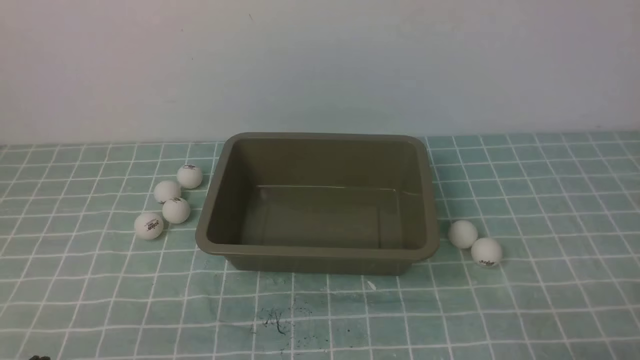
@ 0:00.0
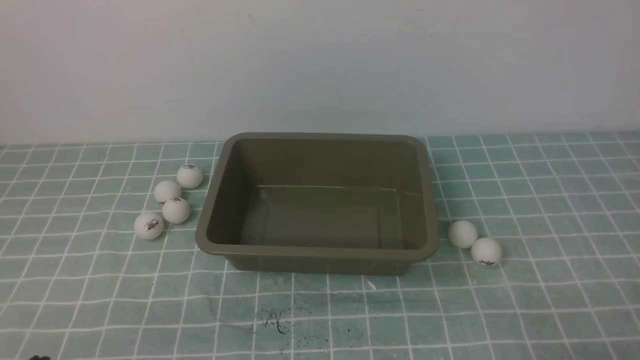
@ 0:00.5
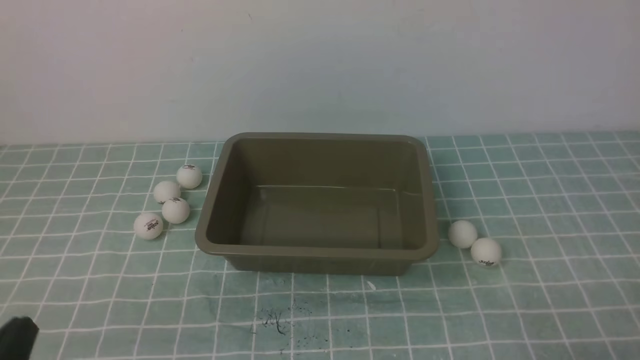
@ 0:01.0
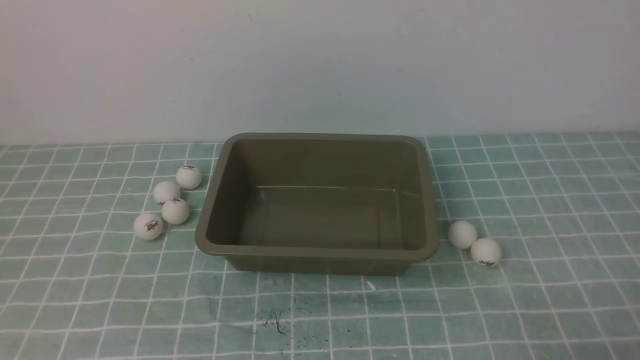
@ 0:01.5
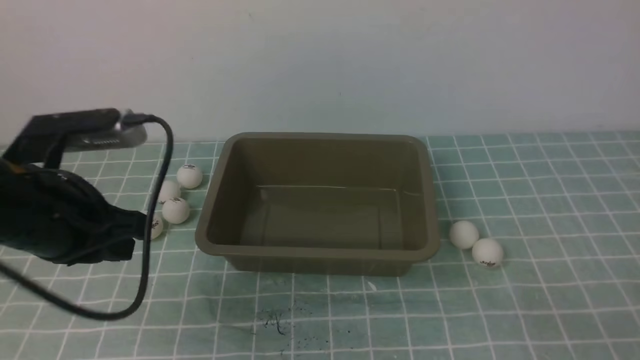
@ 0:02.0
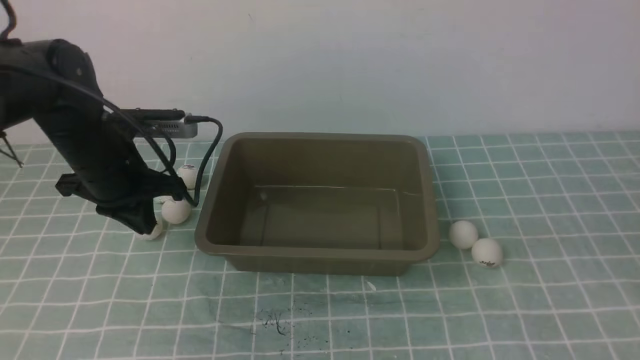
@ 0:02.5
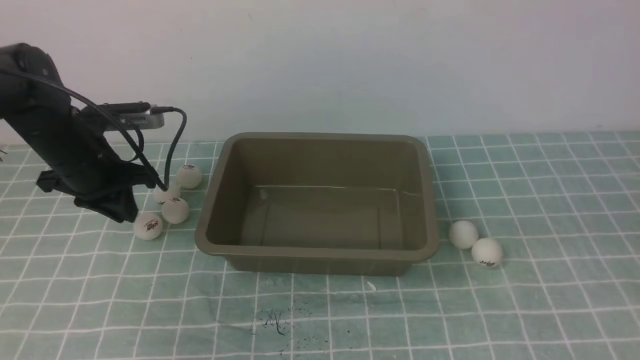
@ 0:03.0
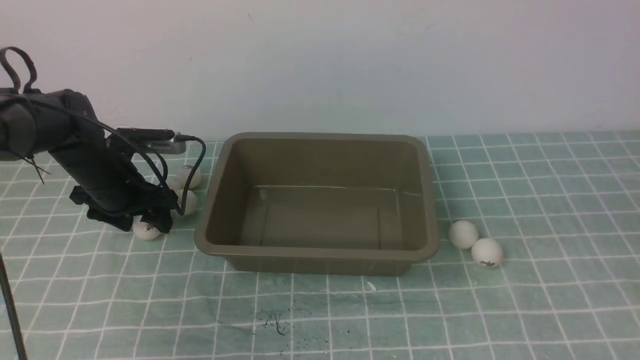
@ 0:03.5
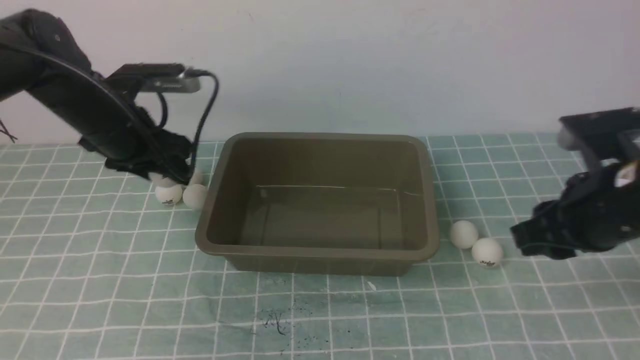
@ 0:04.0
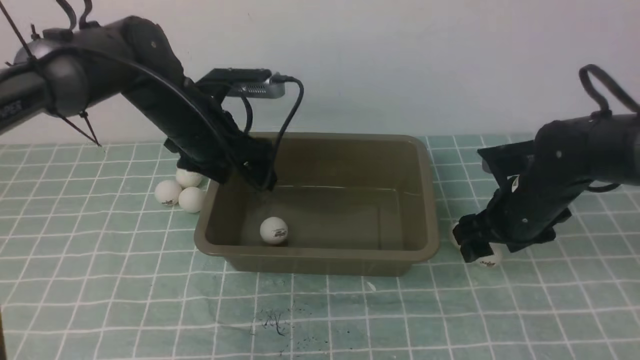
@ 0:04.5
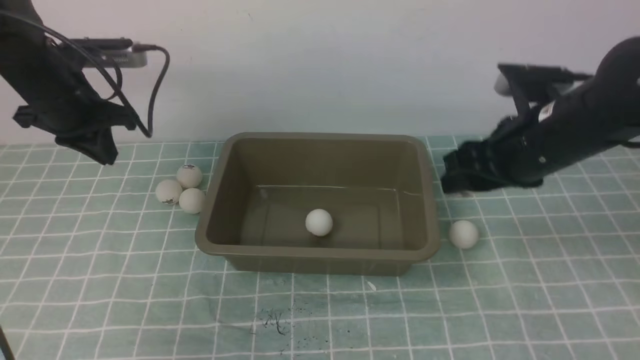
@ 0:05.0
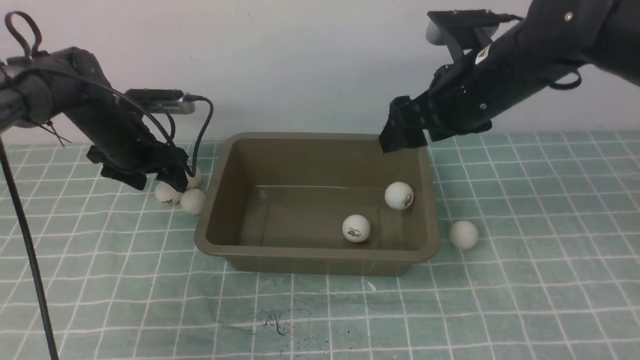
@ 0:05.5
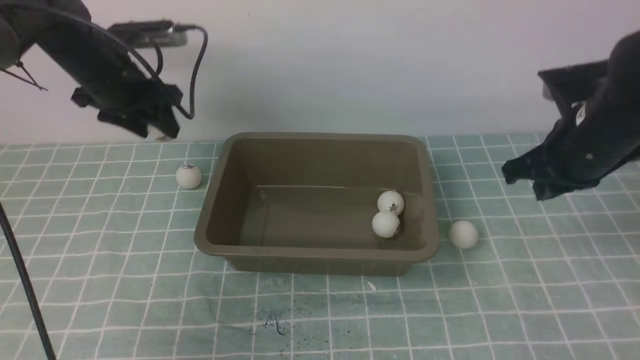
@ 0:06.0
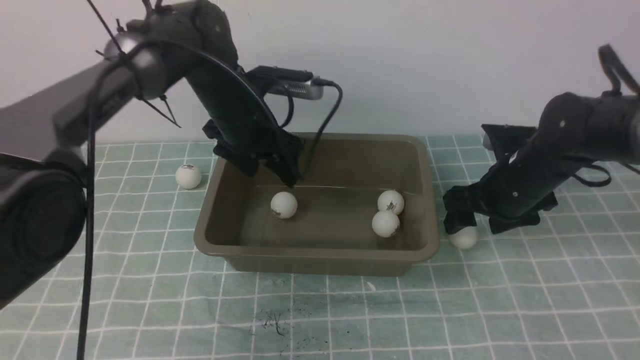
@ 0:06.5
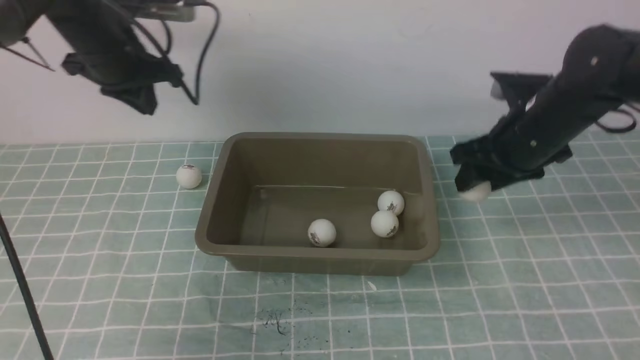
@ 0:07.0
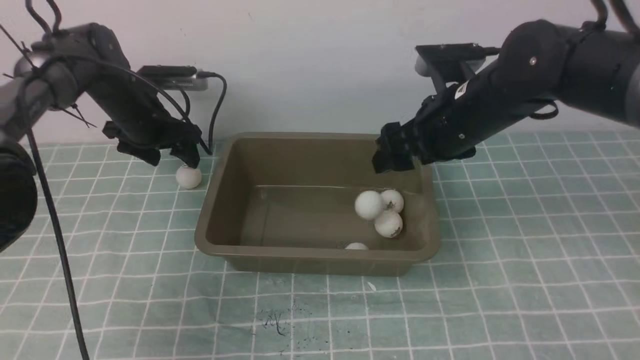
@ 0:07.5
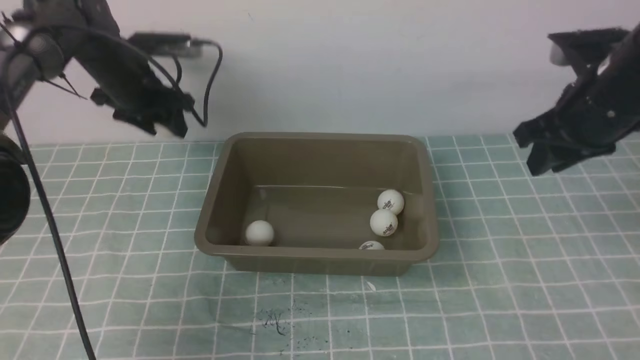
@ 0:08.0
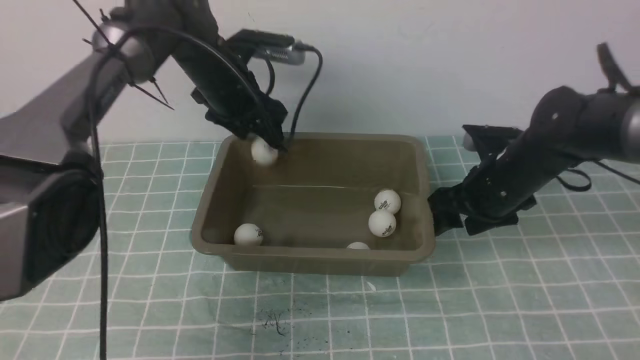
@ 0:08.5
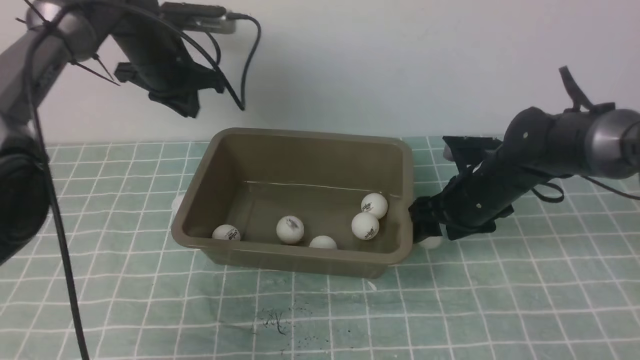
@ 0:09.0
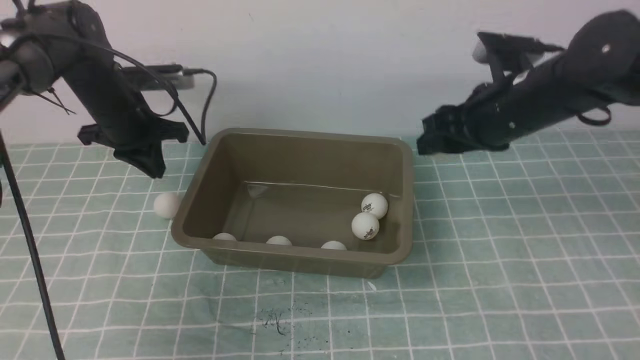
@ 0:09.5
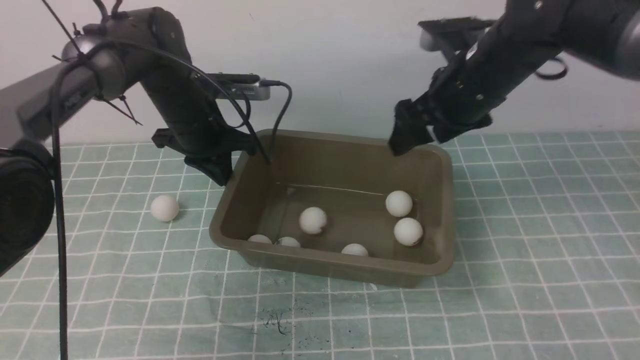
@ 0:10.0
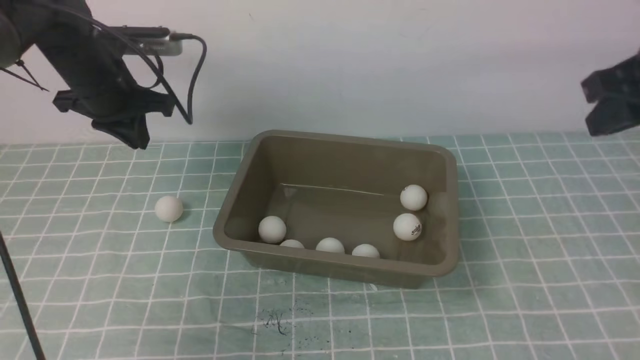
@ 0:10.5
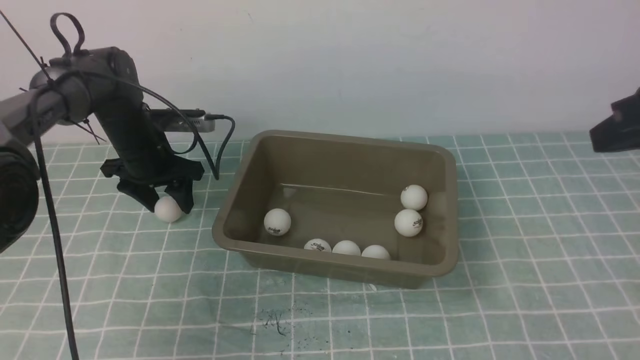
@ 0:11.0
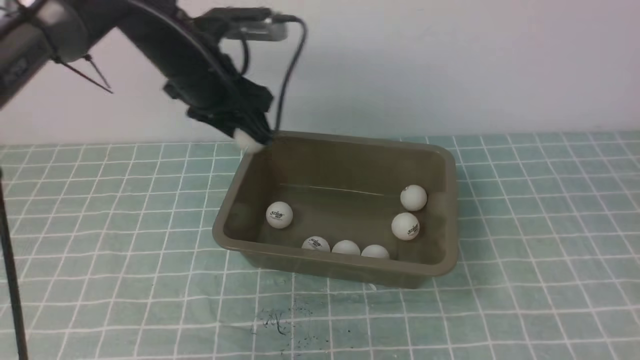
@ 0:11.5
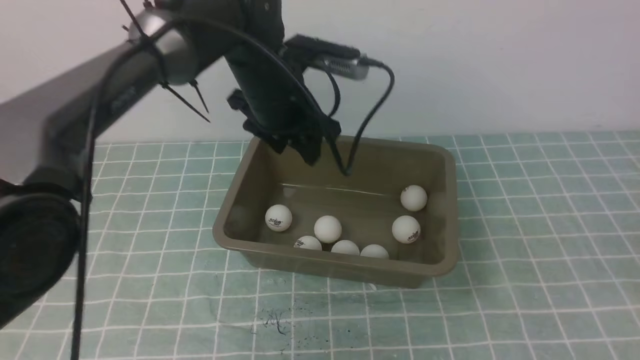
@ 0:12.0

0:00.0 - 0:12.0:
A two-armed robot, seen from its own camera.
Step, 0:00.0 - 0:03.5: use the left arm to clamp the table tennis ball closest to it.
Step, 0:05.0 - 0:05.5: use the right arm to put the table tennis ball into the box.
Step, 0:06.0 - 0:06.5: use the left arm to put the table tennis ball into the box.
Step, 0:07.0 - 0:07.5: use the right arm to put the table tennis ball into the box.
Step, 0:08.0 - 0:08.5: use the left arm to put the table tennis ball into the box.
Step, 0:09.5 - 0:10.0: use the right arm to put the table tennis ball into the box.
Step, 0:10.5 - 0:11.0: use the left arm to clamp the table tennis ball closest to it.
0:00.0 - 0:02.0: The left gripper is displaced forward and upward by about 25 cm. The right gripper travels upward by roughly 5 cm.
0:02.0 - 0:04.0: The grippers both shift forward by about 20 cm. The left gripper opens. Meanwhile the right gripper opens up.
0:04.0 - 0:06.0: The left gripper goes left and right, approximately 10 cm each way, reversing 2 times, and closes, then opens again, while the right gripper goes up and down, approximately 15 cm each way, reversing 2 times, and opens, then closes once more.
0:06.0 - 0:08.0: The left gripper reaches roughly 10 cm to the right, then returns, and closes and opens again, while the right gripper goes downward and returns, about 10 cm each way, and opens, then closes again.
0:08.0 - 0:10.0: The right gripper moves to the left, about 5 cm, reaches some 10 cm downward, then returns, and opens. Meanwhile the left gripper swings left and right, approximately 10 cm each way, with 2 reversals, and closes up.
0:10.0 - 0:12.0: The left gripper shifts about 15 cm to the right, upward and backward, and opens. Meanwhile the right gripper goes roughly 35 cm backward, and closes its fingers.

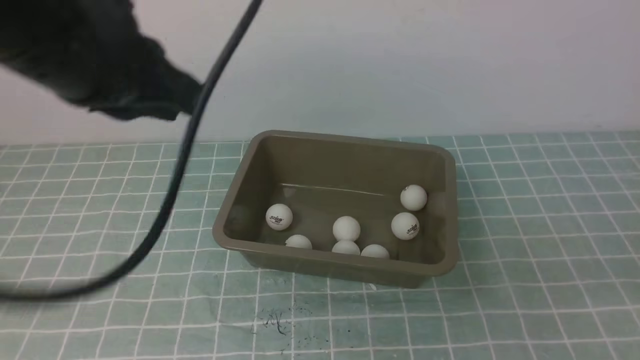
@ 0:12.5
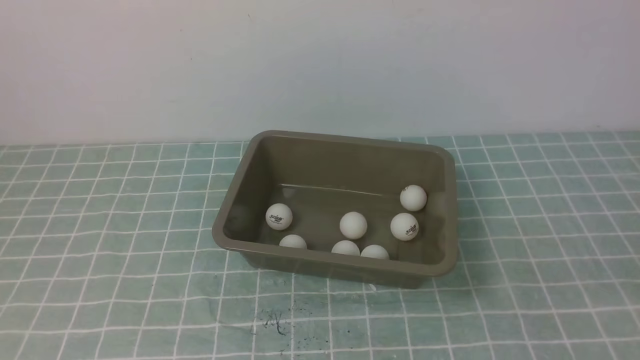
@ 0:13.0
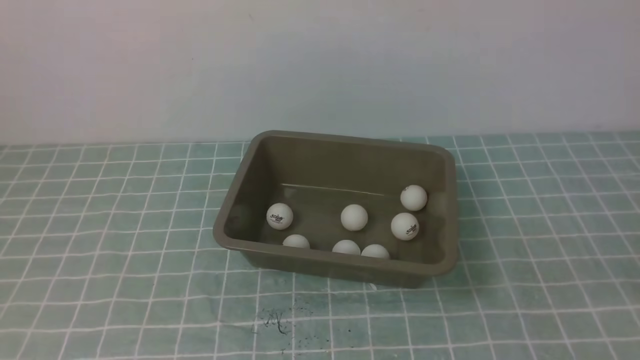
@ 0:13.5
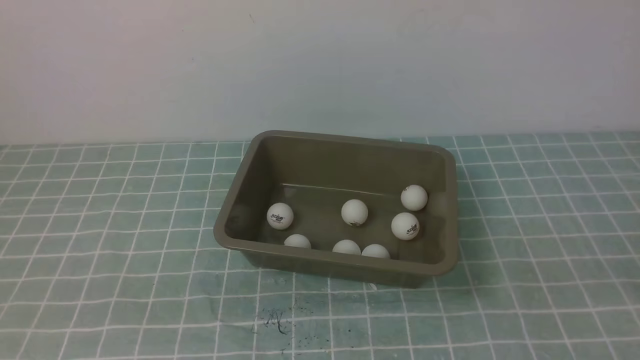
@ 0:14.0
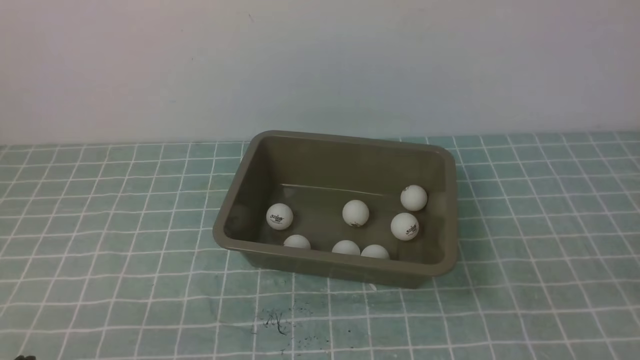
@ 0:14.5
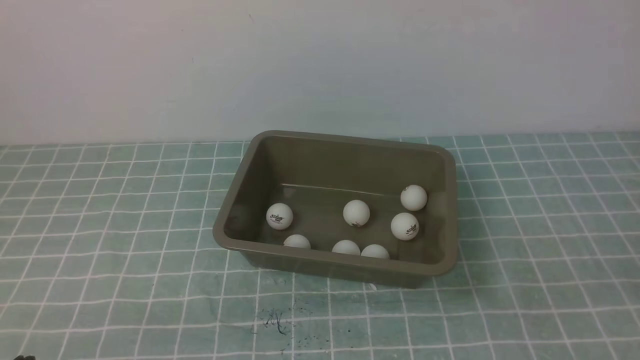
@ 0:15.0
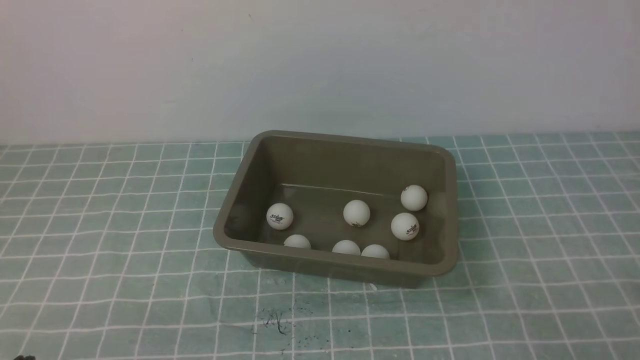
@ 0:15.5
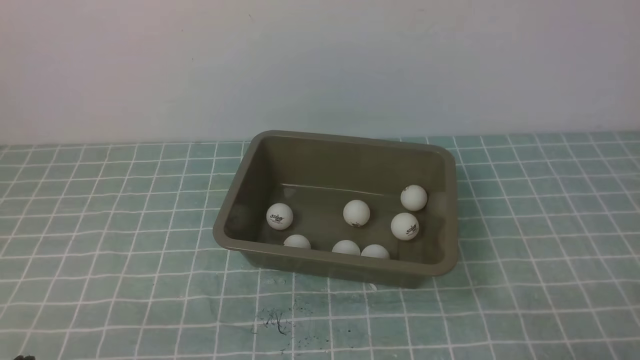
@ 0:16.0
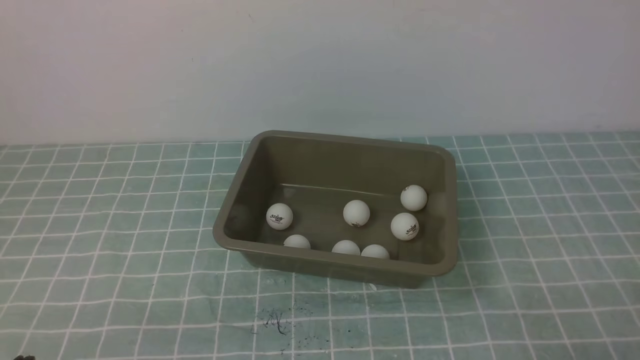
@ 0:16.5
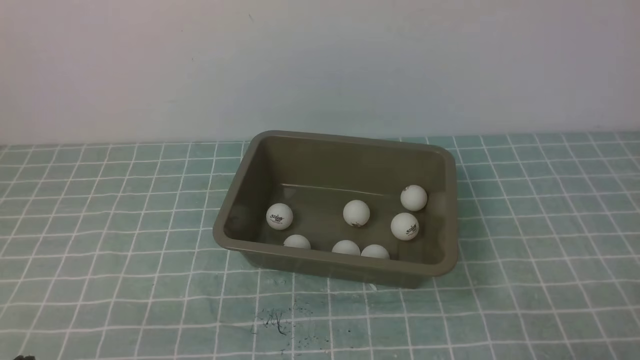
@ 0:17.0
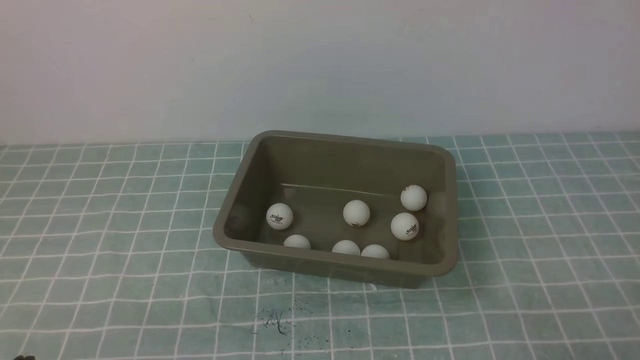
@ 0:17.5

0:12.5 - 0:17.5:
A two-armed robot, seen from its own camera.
0:12.5 - 0:15.0: The left gripper moves downward and backward, about 30 cm.

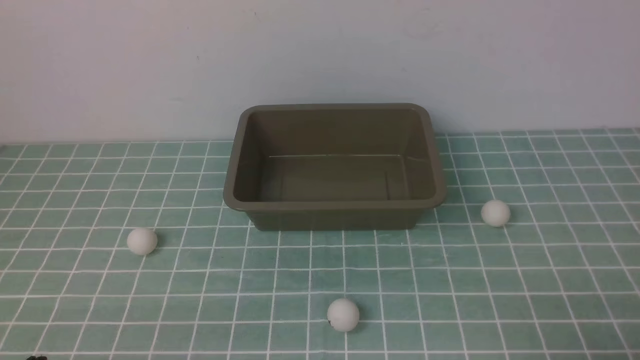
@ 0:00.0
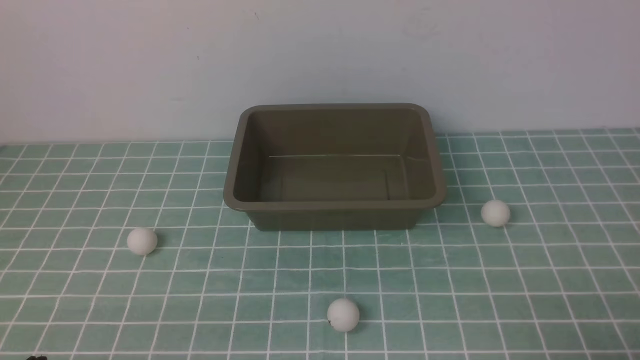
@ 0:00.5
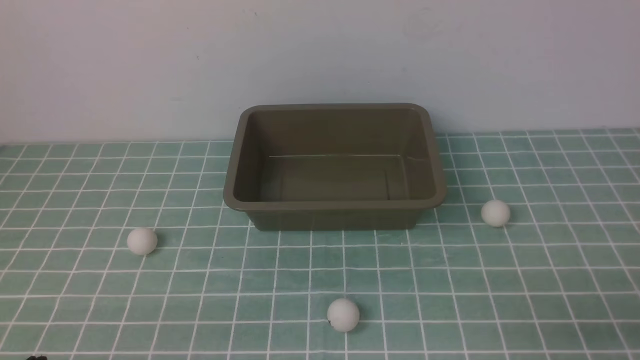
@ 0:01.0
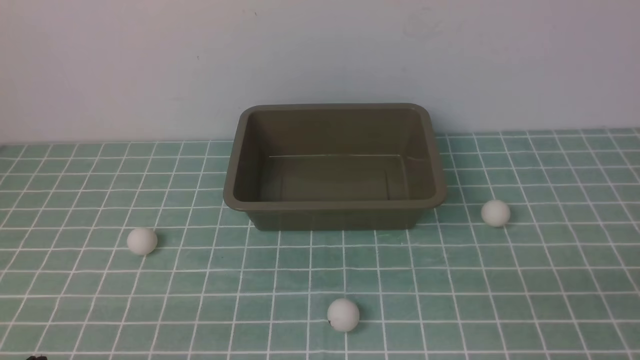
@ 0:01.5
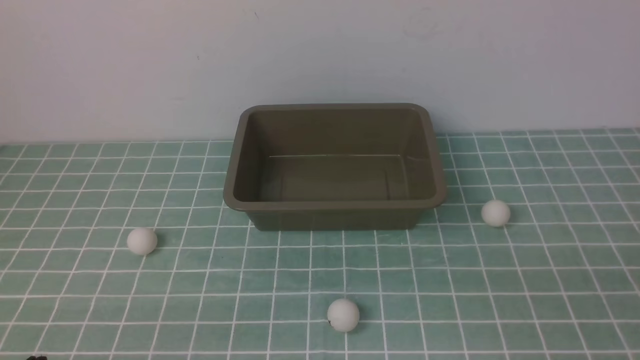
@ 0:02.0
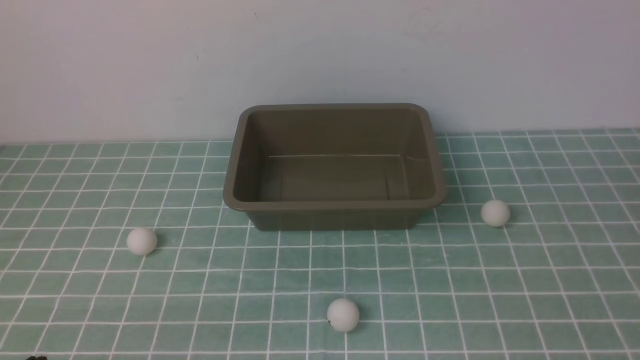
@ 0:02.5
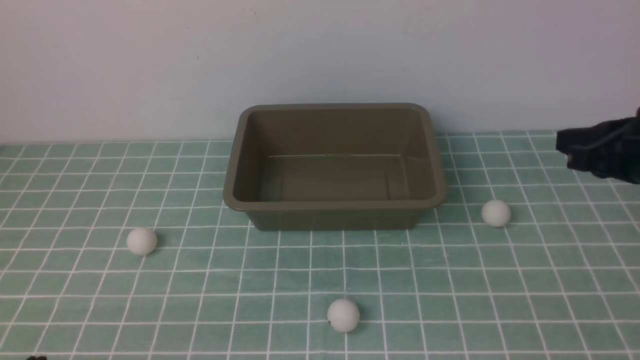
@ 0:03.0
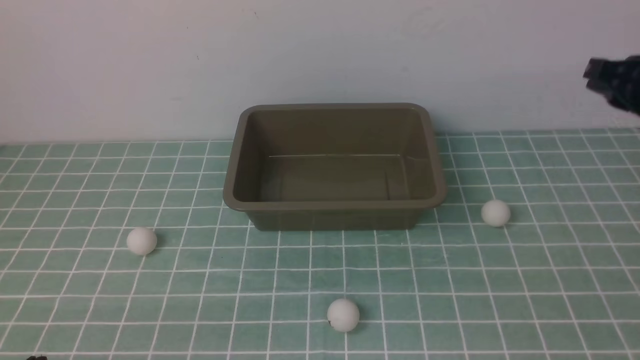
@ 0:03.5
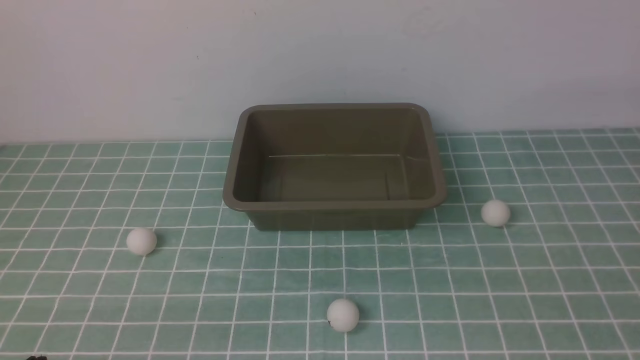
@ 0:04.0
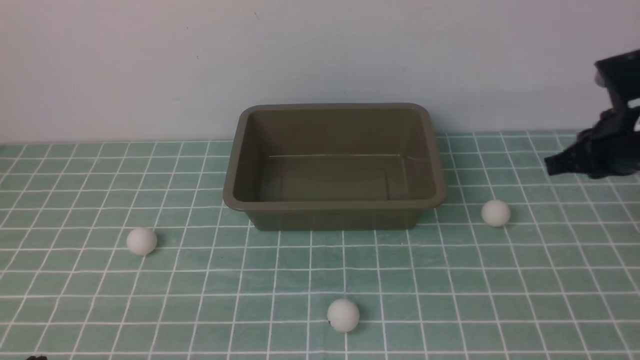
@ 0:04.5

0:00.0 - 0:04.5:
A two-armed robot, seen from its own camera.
0:02.0 - 0:04.5: The right gripper travels forward by approximately 30 cm.
